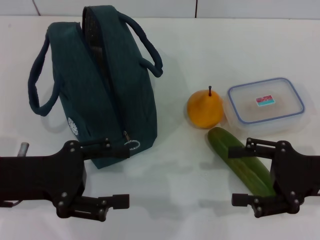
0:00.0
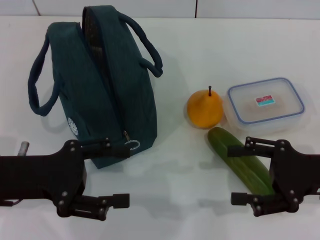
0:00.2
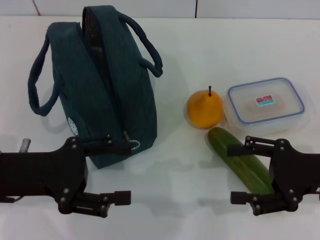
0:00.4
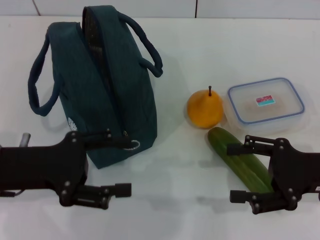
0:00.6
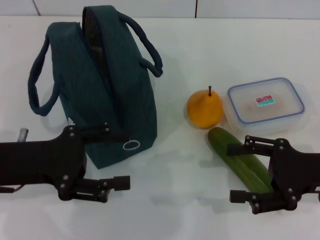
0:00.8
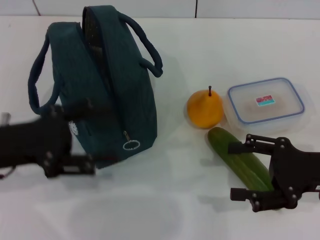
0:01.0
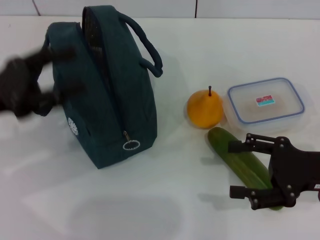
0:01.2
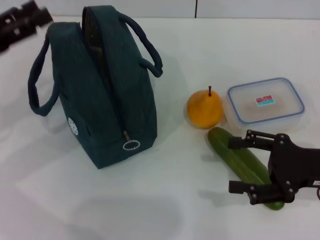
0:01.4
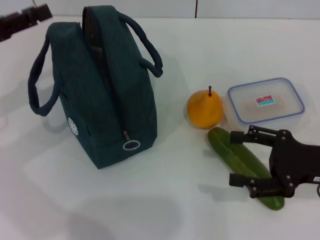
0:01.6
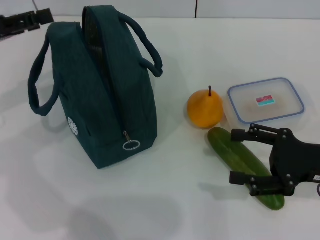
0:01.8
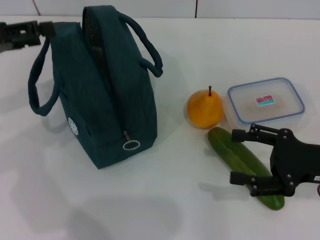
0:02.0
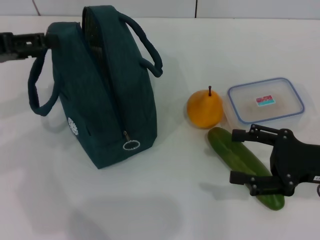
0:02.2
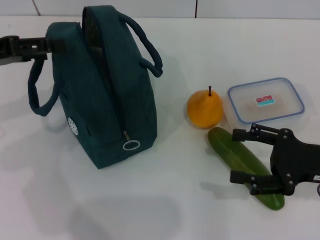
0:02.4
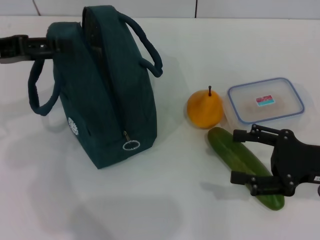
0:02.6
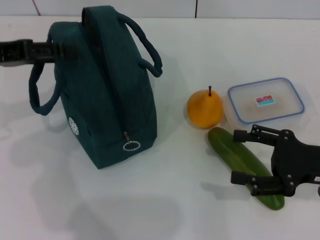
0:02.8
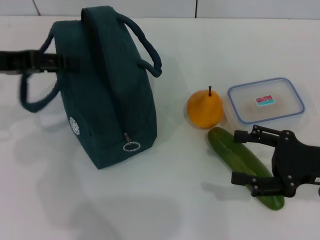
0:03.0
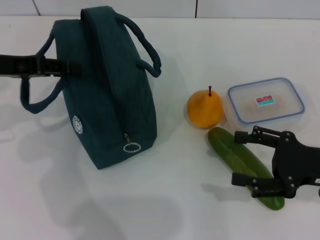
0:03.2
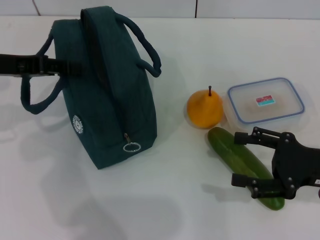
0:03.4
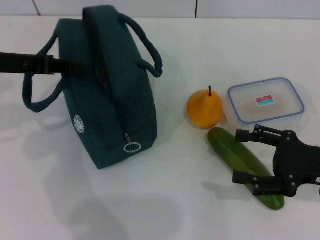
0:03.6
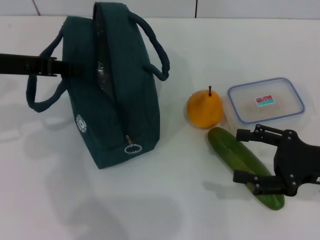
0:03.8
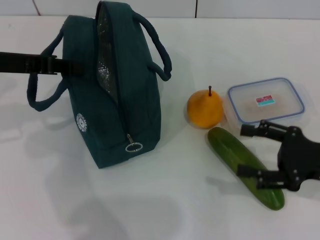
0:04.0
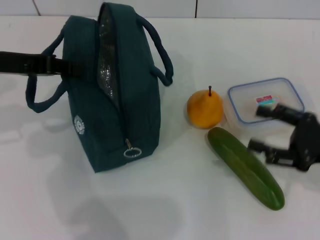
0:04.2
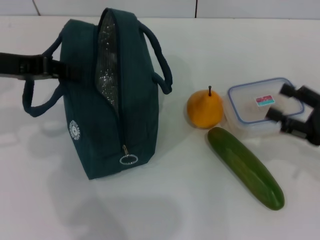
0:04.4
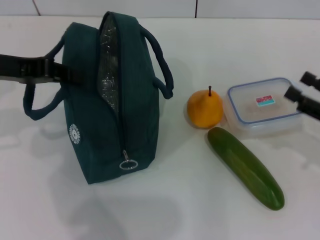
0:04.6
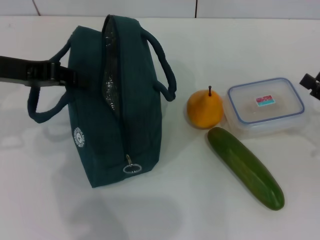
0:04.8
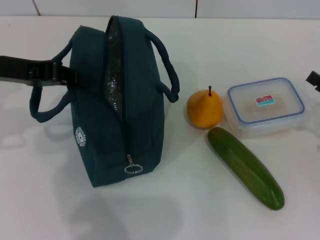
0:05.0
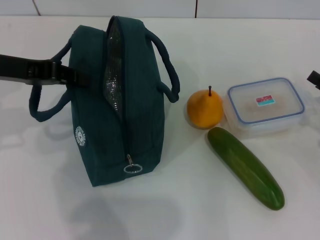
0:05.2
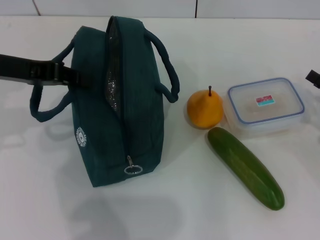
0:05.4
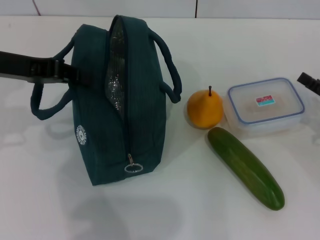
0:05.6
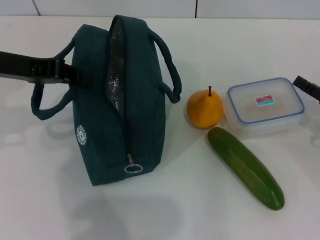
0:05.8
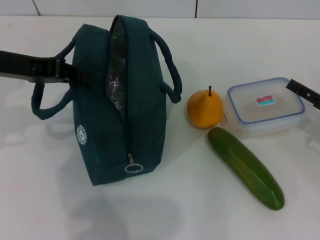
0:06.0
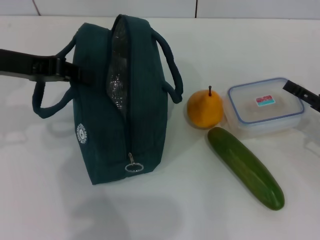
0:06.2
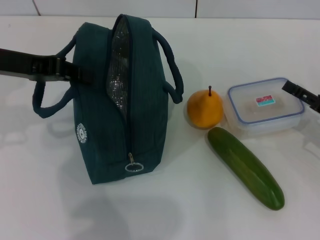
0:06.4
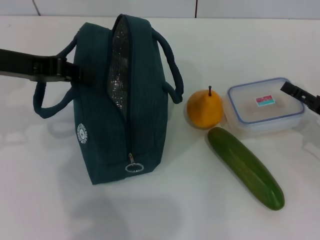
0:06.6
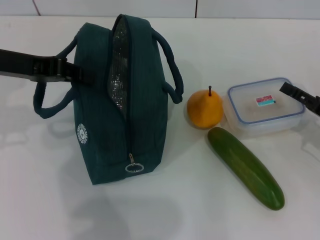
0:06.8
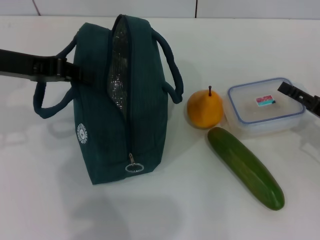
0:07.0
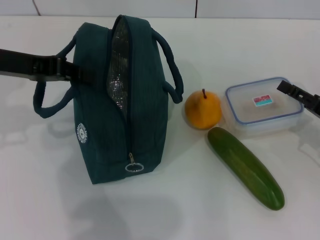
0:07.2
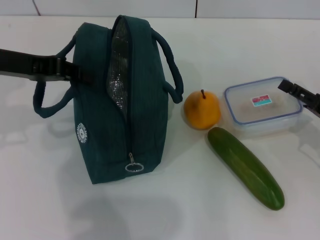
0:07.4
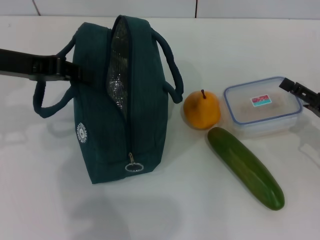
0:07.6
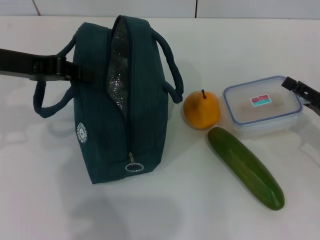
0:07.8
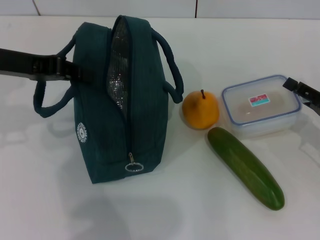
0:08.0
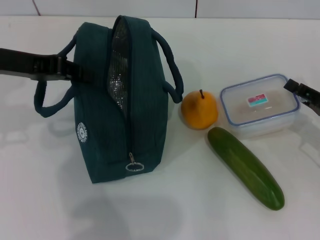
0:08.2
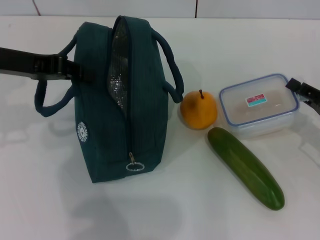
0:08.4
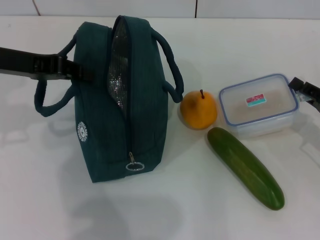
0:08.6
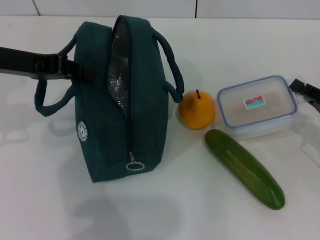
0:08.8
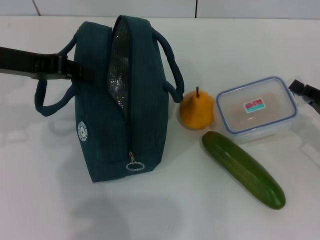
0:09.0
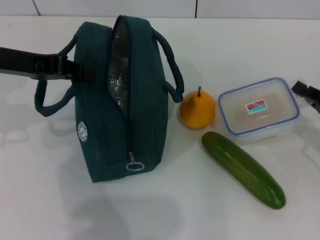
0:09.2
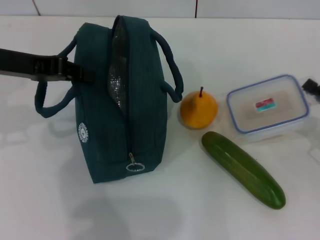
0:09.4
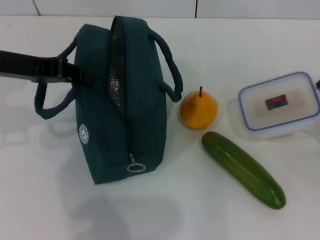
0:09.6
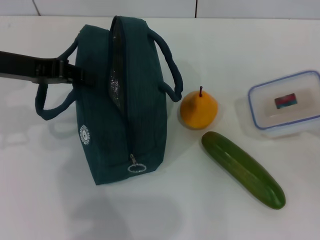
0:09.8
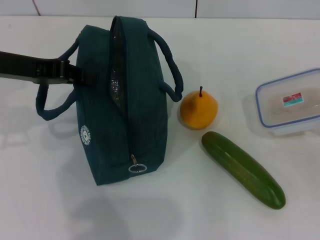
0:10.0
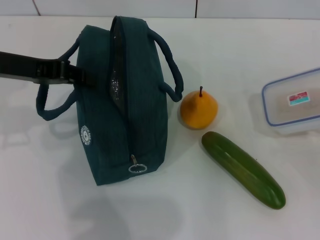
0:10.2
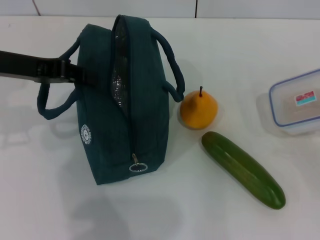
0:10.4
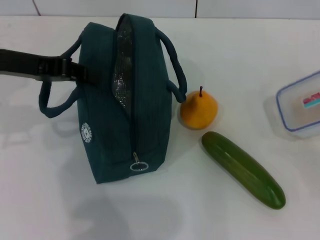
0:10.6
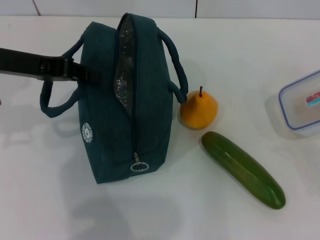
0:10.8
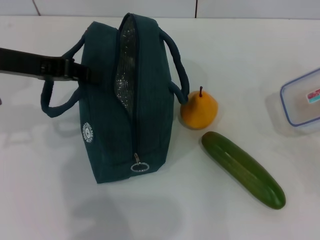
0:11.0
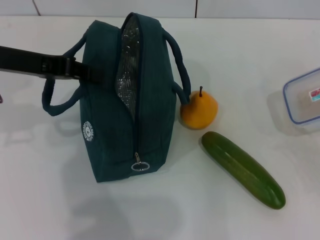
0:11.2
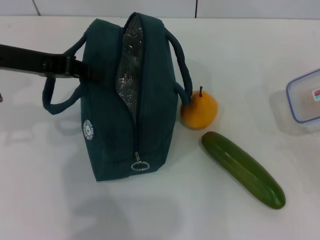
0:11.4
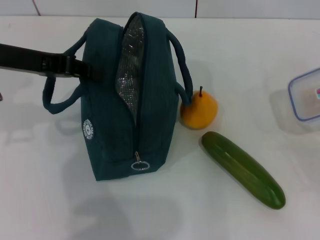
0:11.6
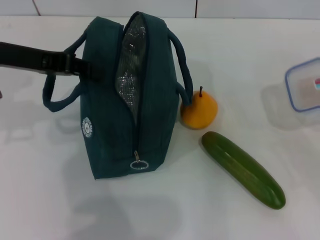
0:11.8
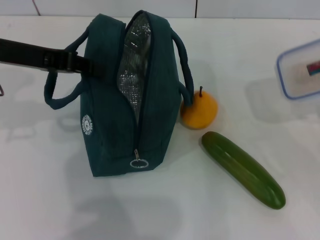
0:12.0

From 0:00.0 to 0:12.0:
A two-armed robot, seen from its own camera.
Step, from 0:00.0 to 0:04.6: Hold the lunch bag with your left hand.
Step, from 0:04.8 to 0:09.4: Pick up the lunch box with your right hand.
From 0:00.0 to 0:01.6: The left gripper heads forward, to the left and upward, covering approximately 15 cm.
From 0:03.0 to 0:04.4: The left gripper closes up.
From 0:04.4 to 0:06.0: The right gripper changes place by some 5 cm.
From 0:06.0 to 0:07.6: The grippers move only a little.
From 0:07.6 to 0:09.0: The right gripper closes.
From 0:09.0 to 0:10.4: The right gripper shifts by roughly 5 cm.

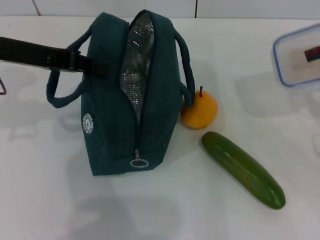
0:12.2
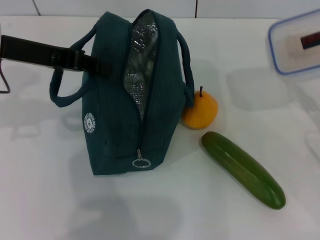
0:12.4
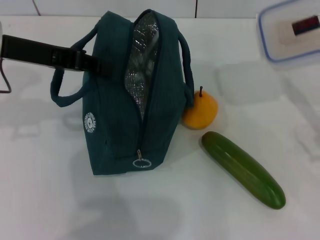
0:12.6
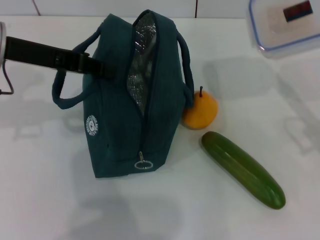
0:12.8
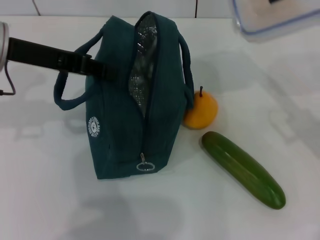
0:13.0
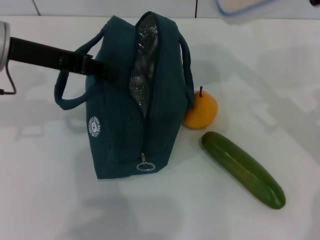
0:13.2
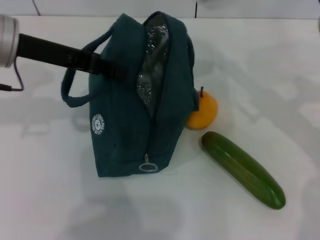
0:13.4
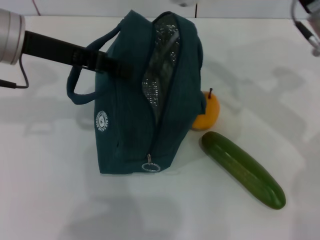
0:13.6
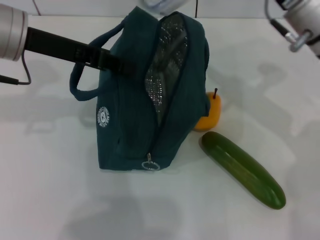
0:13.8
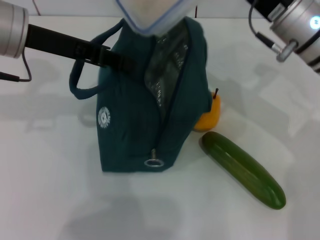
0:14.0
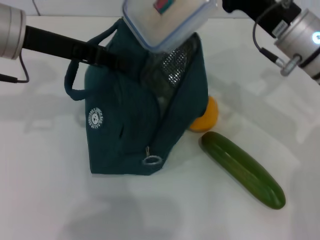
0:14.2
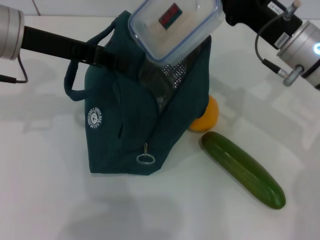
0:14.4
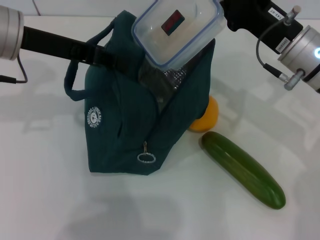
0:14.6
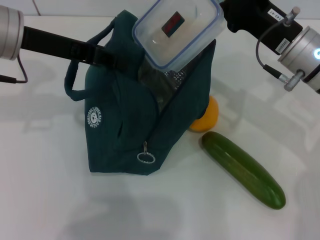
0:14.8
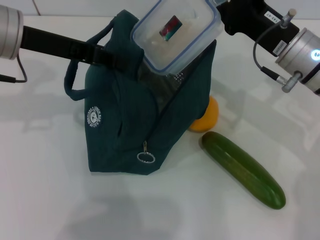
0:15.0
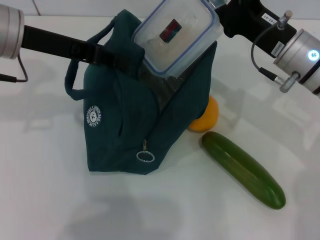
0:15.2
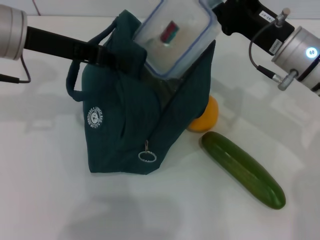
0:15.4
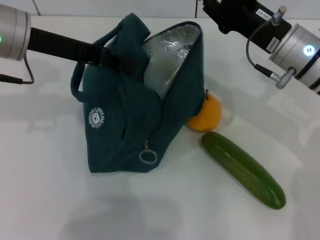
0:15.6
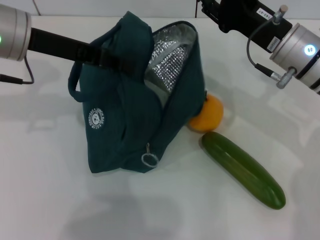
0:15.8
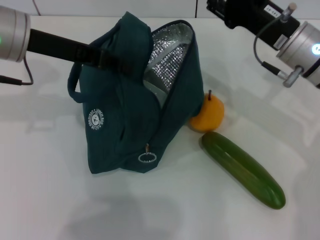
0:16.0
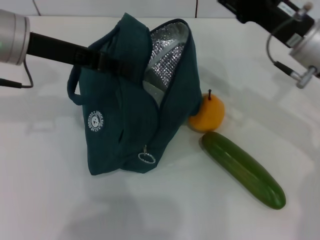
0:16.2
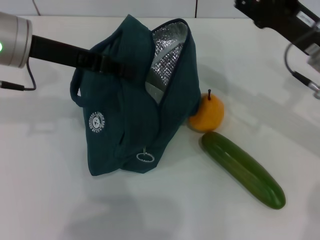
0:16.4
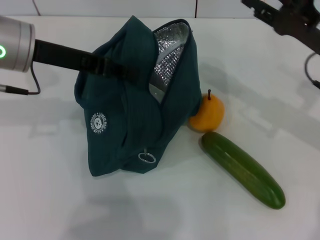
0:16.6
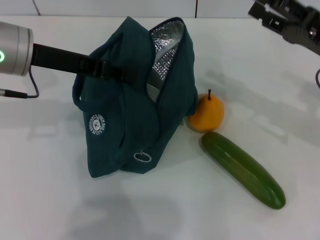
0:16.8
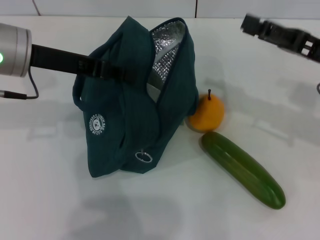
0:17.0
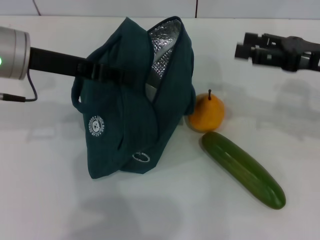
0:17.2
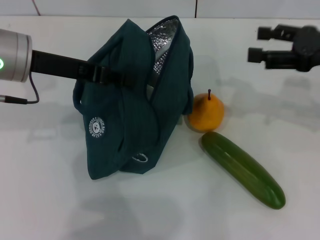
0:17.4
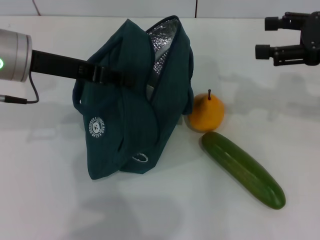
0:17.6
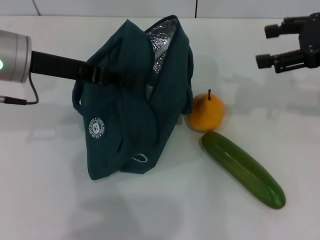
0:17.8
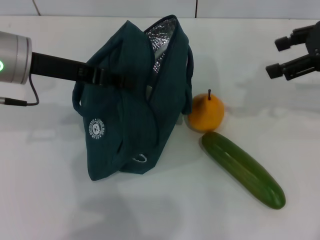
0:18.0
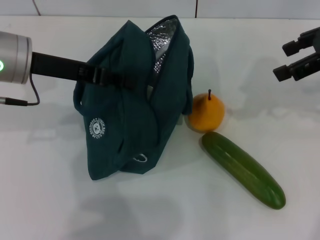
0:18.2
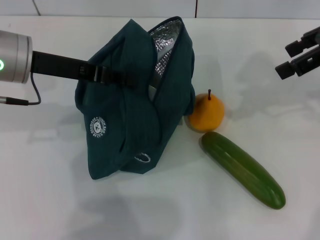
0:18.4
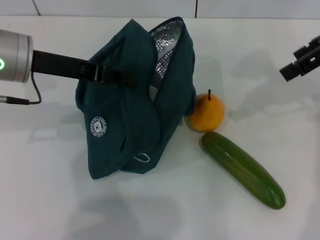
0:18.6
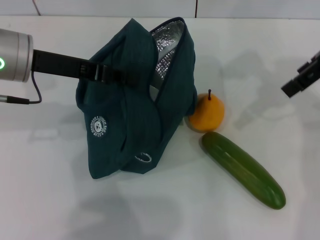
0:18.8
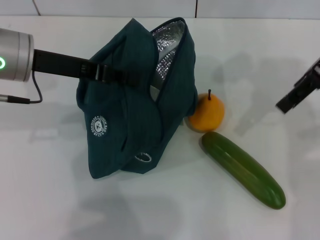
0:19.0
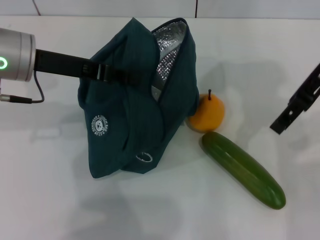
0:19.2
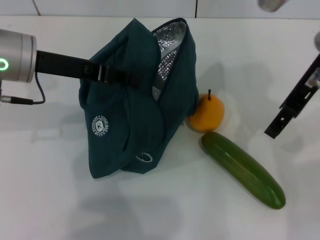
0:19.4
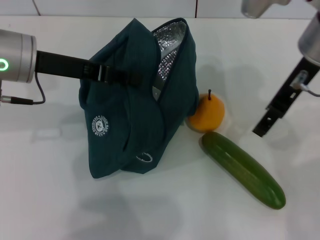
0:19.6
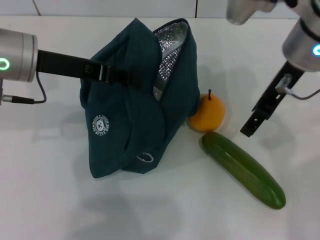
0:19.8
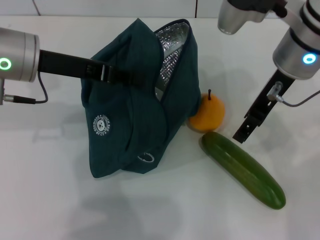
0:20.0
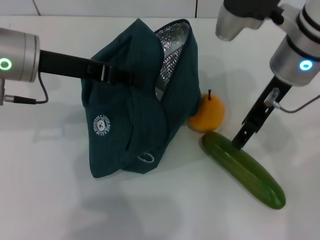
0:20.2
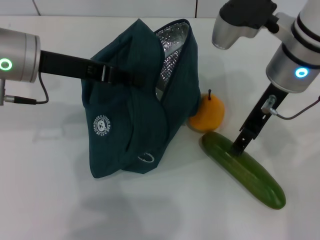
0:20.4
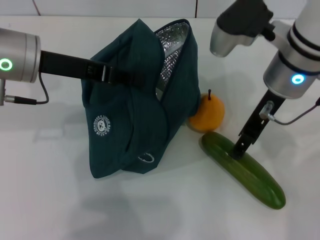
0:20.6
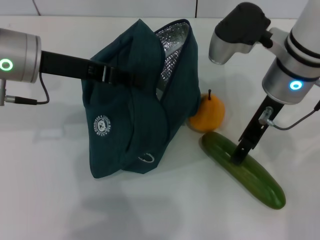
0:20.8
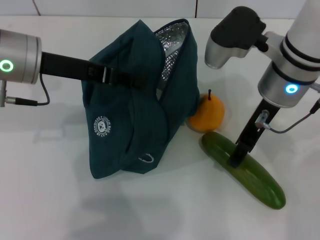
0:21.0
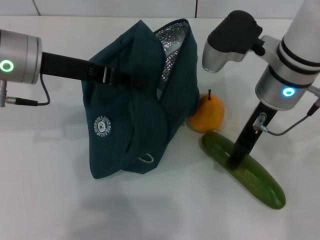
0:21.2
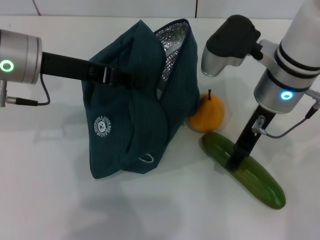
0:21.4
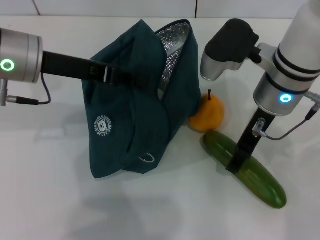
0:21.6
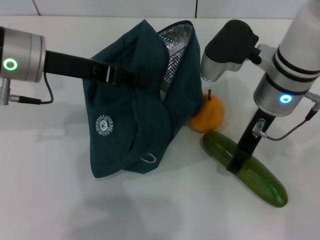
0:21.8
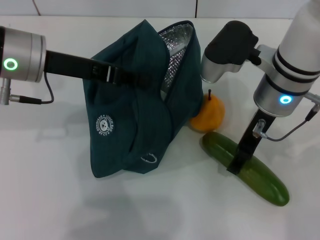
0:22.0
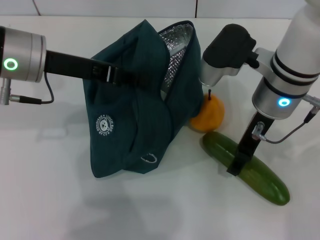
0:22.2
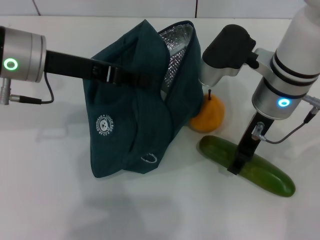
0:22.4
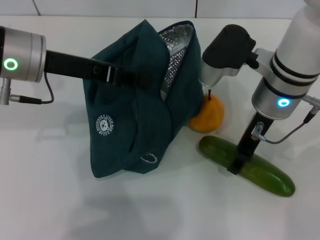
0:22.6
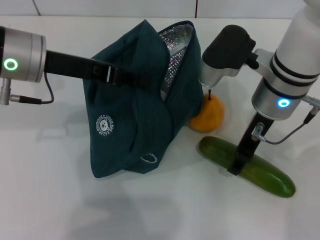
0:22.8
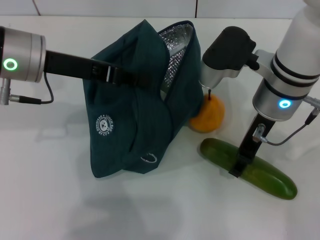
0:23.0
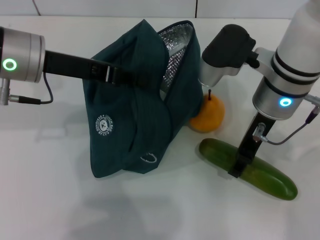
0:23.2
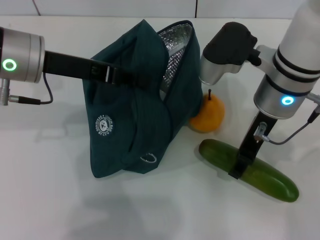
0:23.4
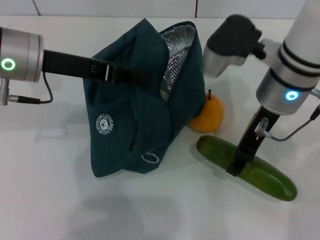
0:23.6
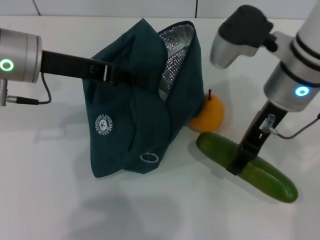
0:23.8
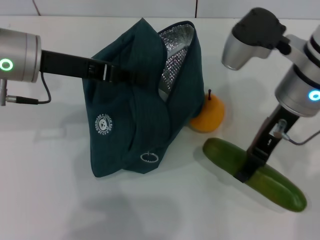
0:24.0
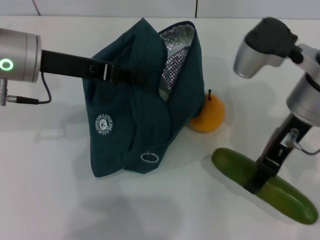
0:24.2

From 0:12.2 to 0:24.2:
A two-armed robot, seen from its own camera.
Step, from 0:12.2 to 0:15.6: Place the lunch box into the lunch bag with your right hand.
Step, from 0:15.8 to 0:23.0: Pick up the cucumber with your right hand.
From 0:12.2 to 0:13.8: The right gripper heads to the left, forward and upward, covering about 25 cm.
From 0:13.8 to 0:15.2: The right gripper moves about 5 cm.
From 0:15.2 to 0:16.6: The right gripper shifts about 5 cm to the right, and opens.
From 0:16.6 to 0:18.2: The right gripper travels upward by roughly 15 cm.
From 0:18.2 to 0:19.8: The right gripper heads to the left, covering about 15 cm.
From 0:19.8 to 0:21.2: The right gripper is displaced downward by approximately 5 cm.
From 0:21.2 to 0:22.6: The grippers move only a little.
From 0:22.6 to 0:24.2: The right gripper changes place by some 5 cm.
